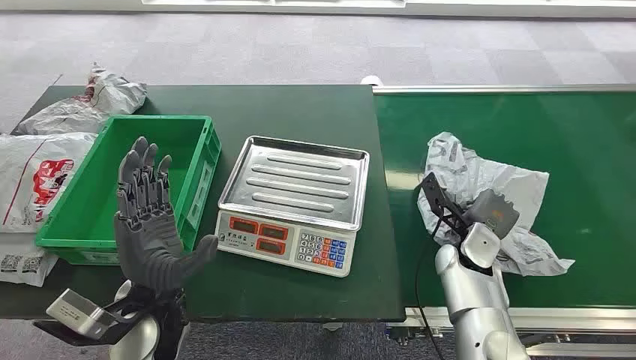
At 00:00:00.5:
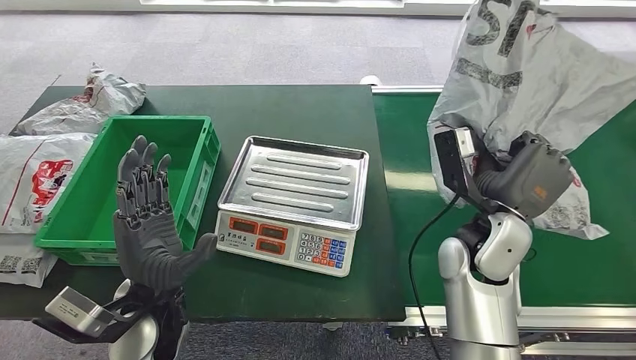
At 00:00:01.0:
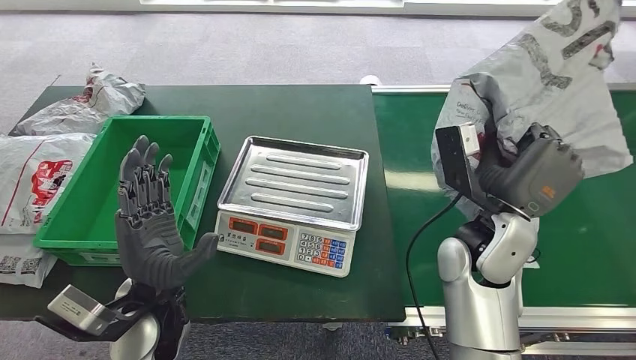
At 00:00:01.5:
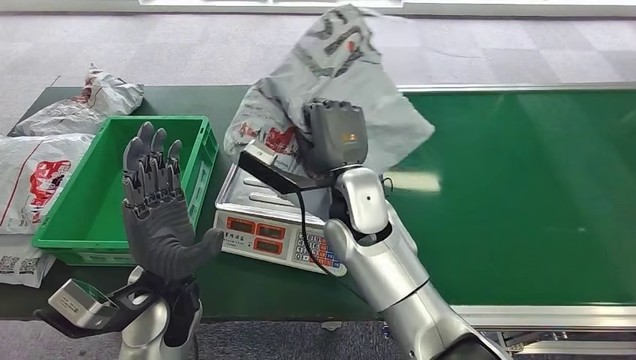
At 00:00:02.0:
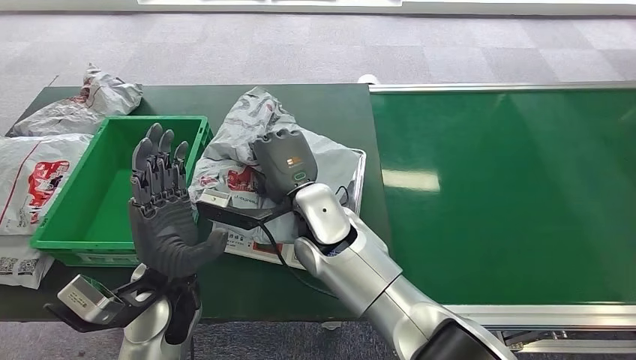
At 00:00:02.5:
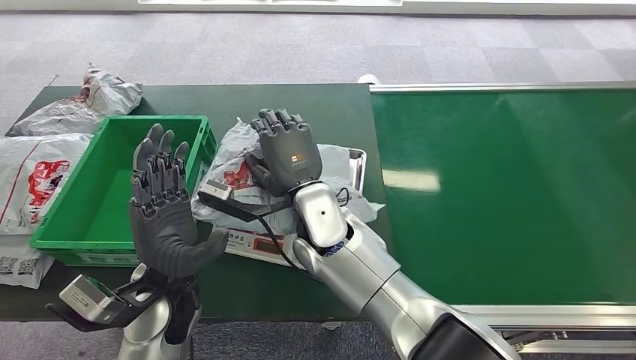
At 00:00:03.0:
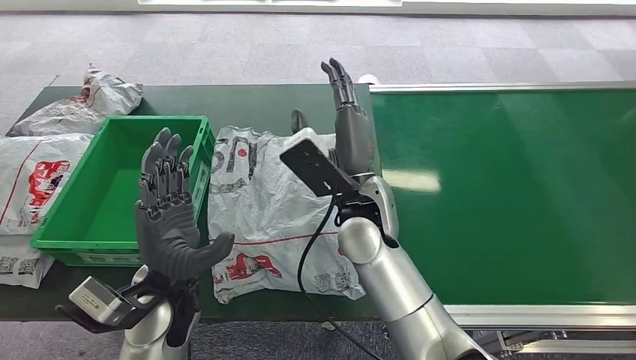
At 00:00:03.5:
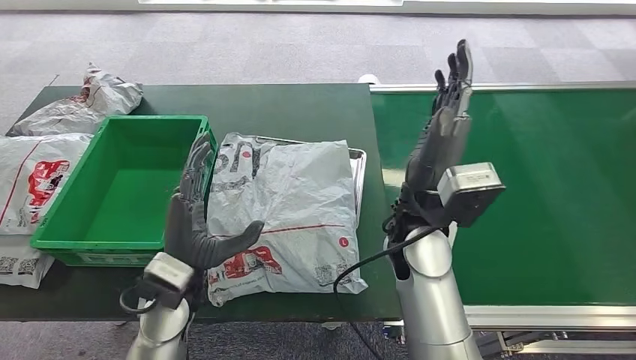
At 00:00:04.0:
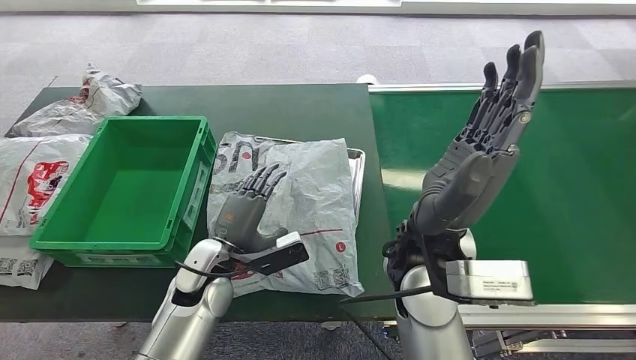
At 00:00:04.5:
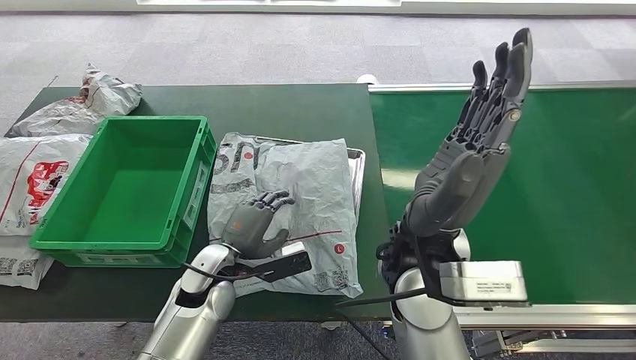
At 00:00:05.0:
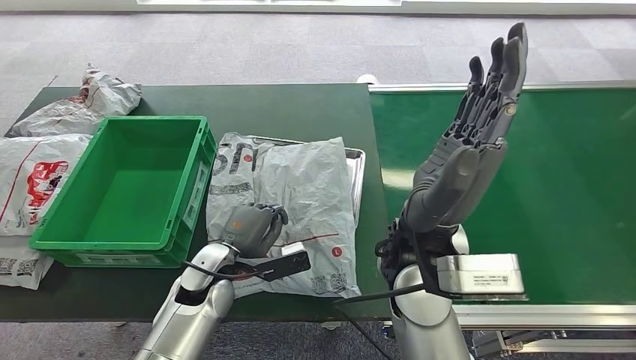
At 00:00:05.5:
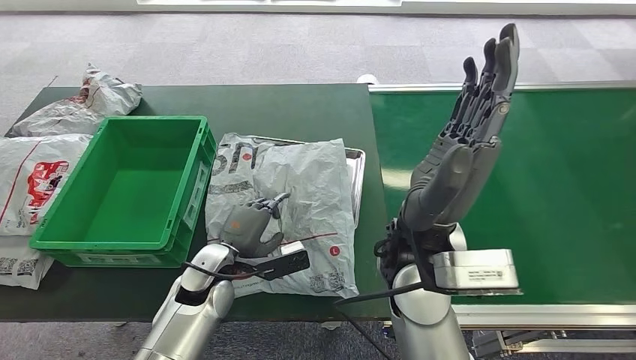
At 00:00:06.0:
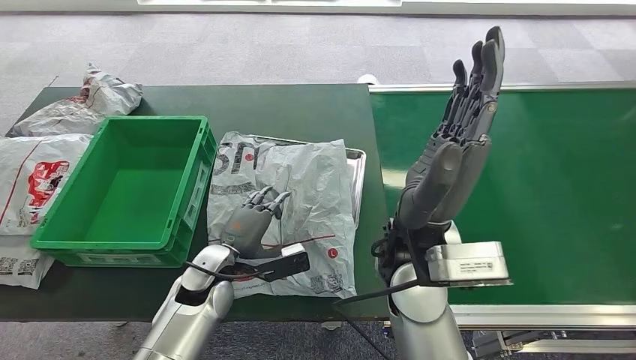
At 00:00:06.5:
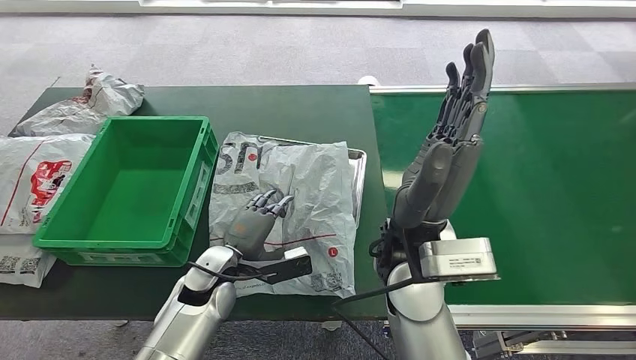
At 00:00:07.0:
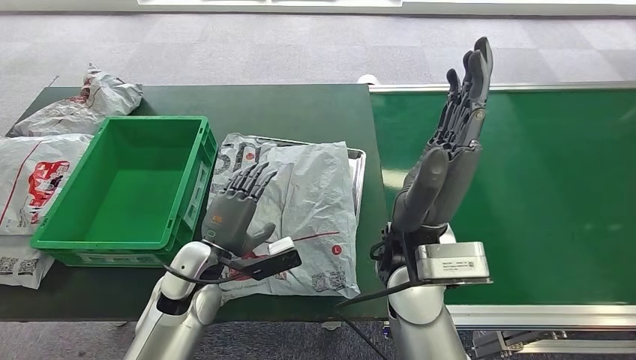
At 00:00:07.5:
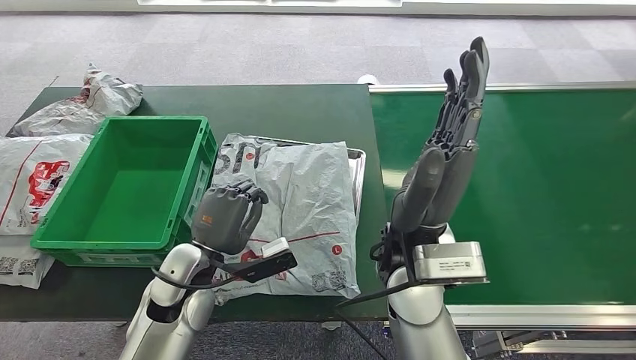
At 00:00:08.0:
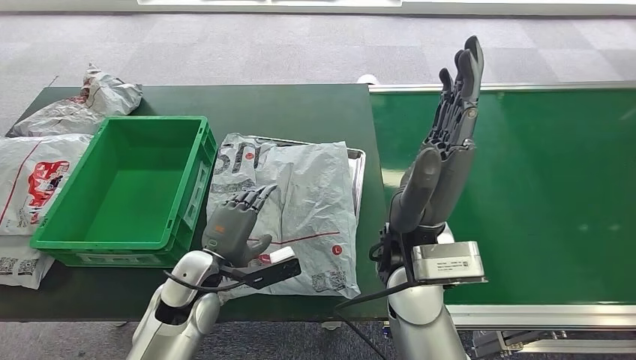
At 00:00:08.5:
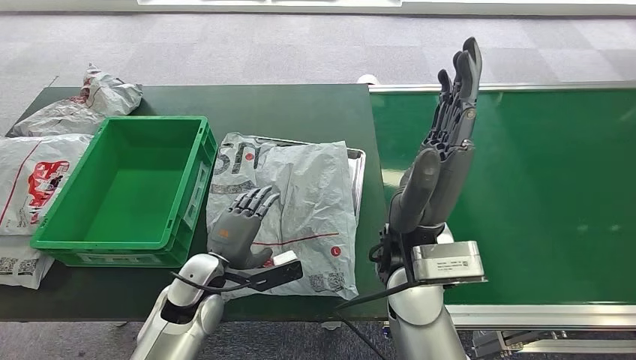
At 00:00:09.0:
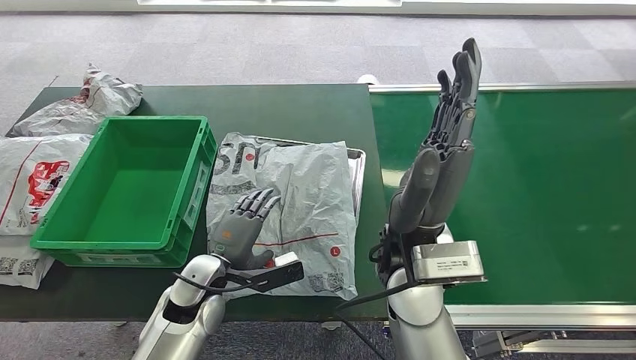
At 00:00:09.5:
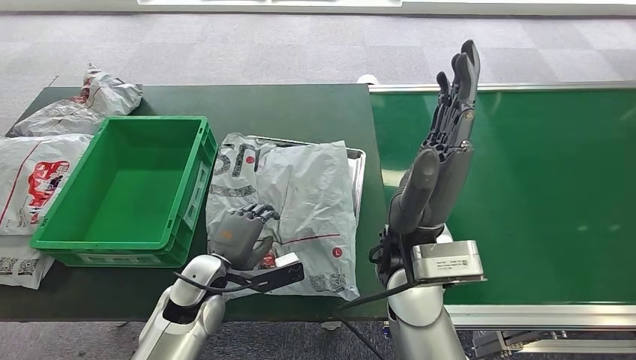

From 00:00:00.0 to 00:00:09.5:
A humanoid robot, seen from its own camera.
Step, from 00:00:00.0 to 00:00:01.0: Pick up the package from the conveyor belt.
Step, from 00:00:01.5 to 00:00:03.5: Place the package onto the inbound machine.
From 00:00:04.0 to 00:00:05.5: The hands move only a little.
From 00:00:05.5 to 00:00:07.5: The left hand moves upward, approximately 5 cm.
From 00:00:07.5 to 00:00:09.5: The left hand heads downward, covering approximately 5 cm.

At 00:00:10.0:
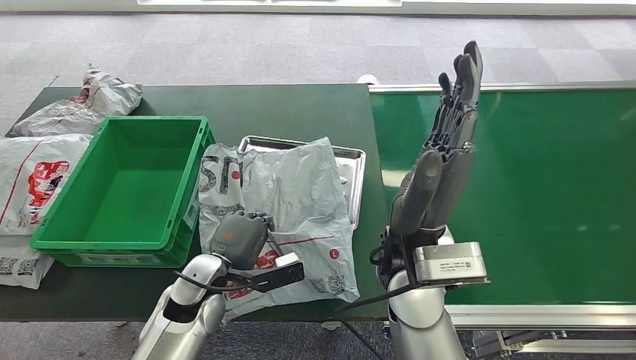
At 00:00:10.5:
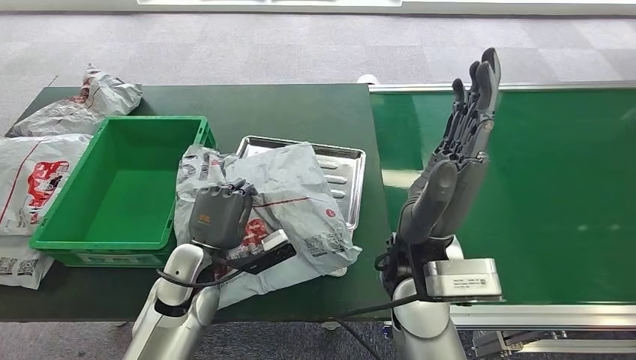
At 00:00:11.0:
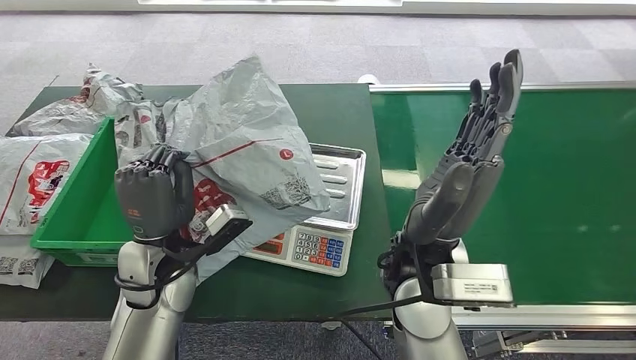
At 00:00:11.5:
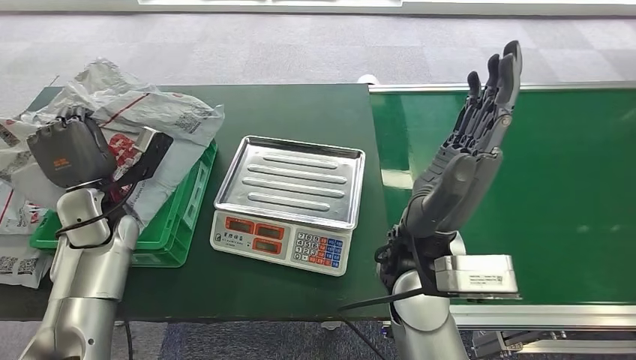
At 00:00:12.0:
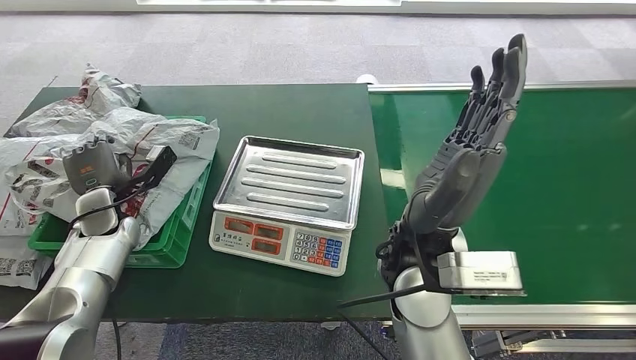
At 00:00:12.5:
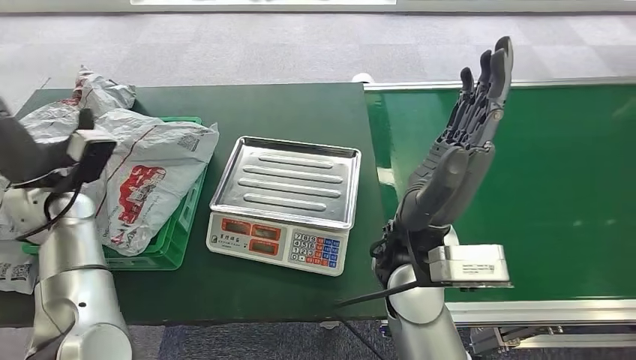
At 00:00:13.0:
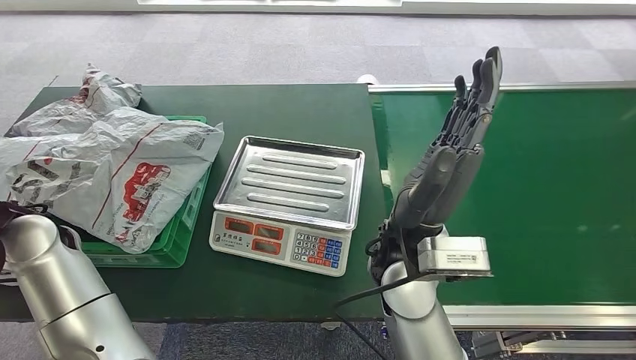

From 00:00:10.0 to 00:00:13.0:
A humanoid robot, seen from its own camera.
Step, from 00:00:12.0 to 00:00:13.0: Place the package into the parcel locker.

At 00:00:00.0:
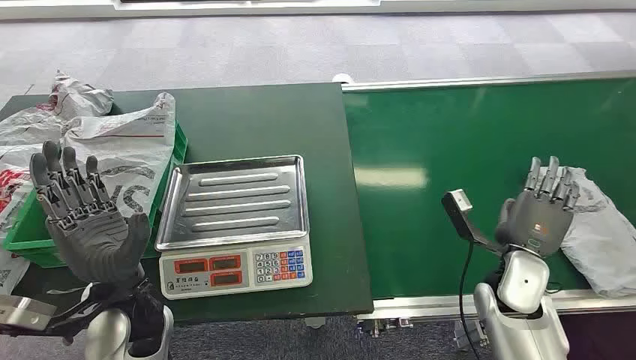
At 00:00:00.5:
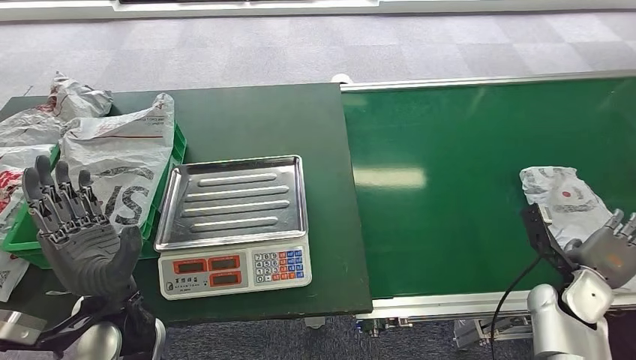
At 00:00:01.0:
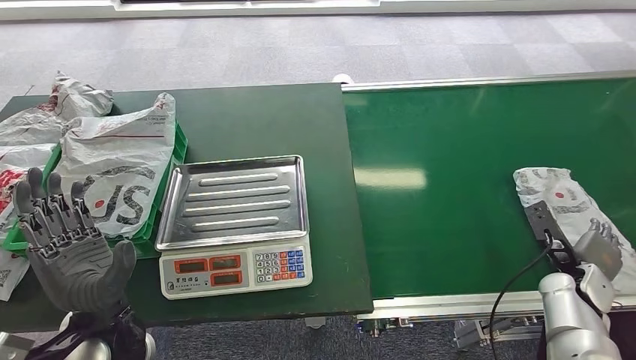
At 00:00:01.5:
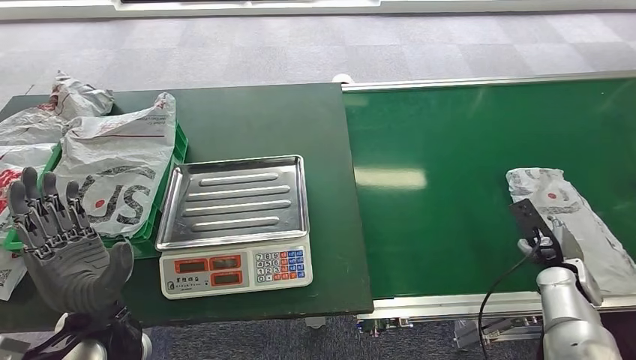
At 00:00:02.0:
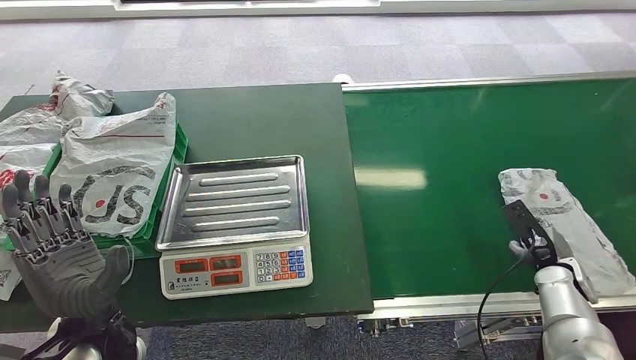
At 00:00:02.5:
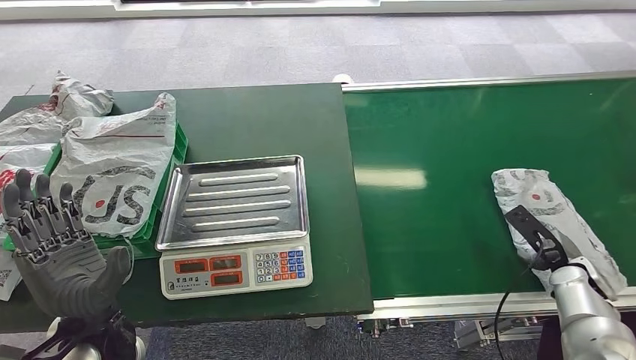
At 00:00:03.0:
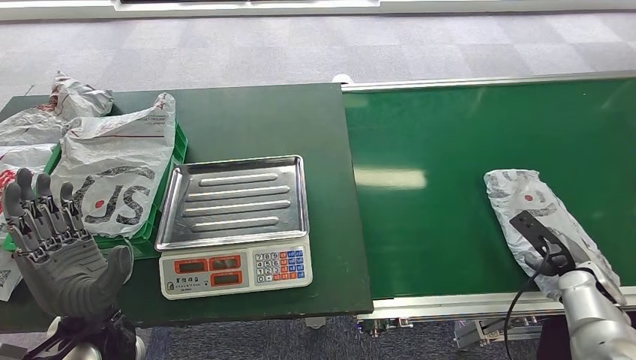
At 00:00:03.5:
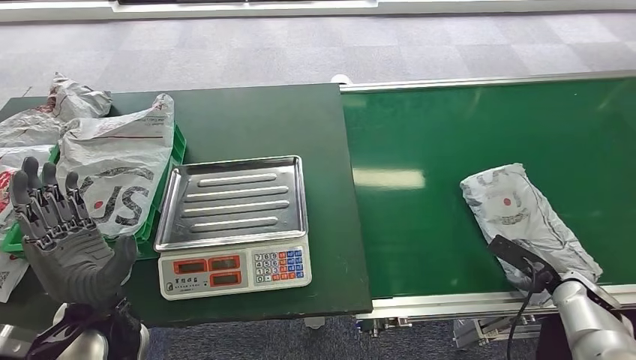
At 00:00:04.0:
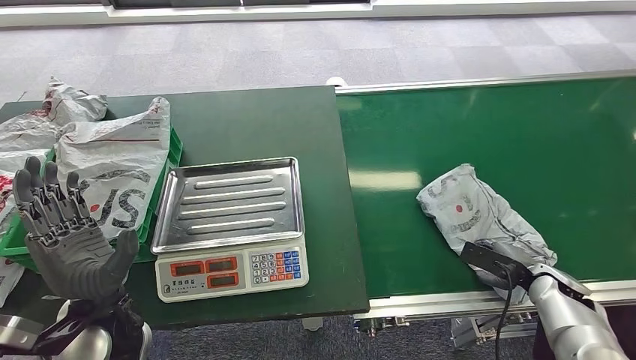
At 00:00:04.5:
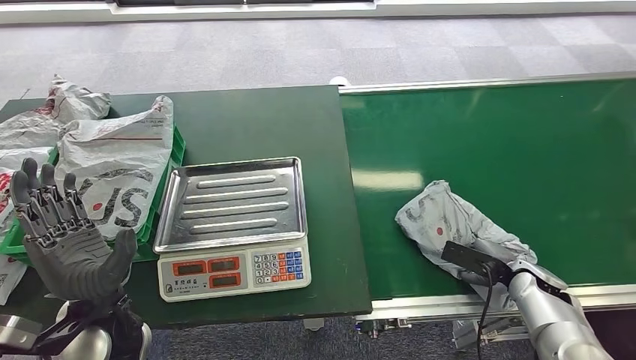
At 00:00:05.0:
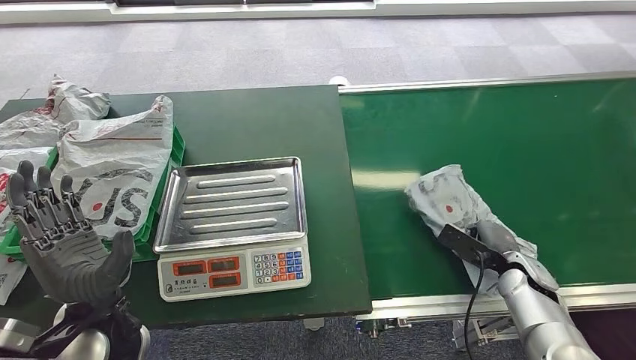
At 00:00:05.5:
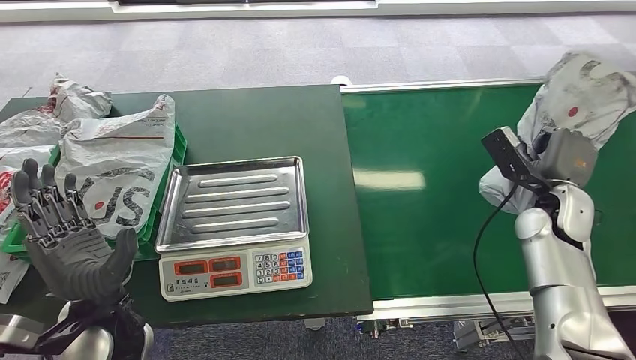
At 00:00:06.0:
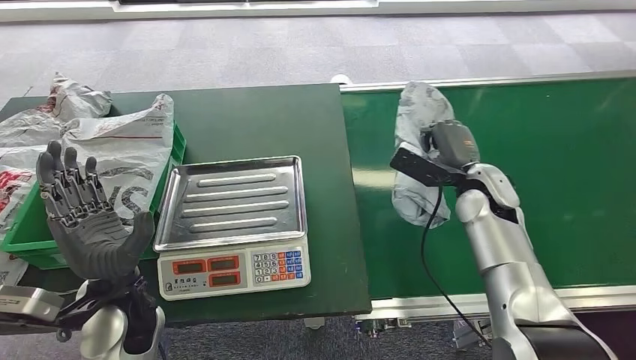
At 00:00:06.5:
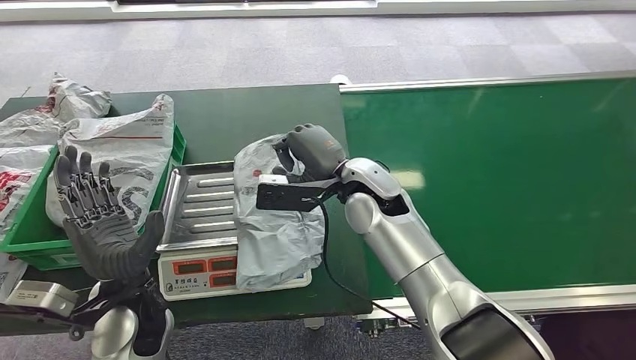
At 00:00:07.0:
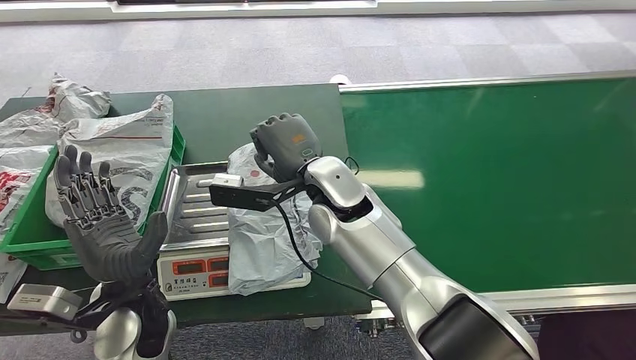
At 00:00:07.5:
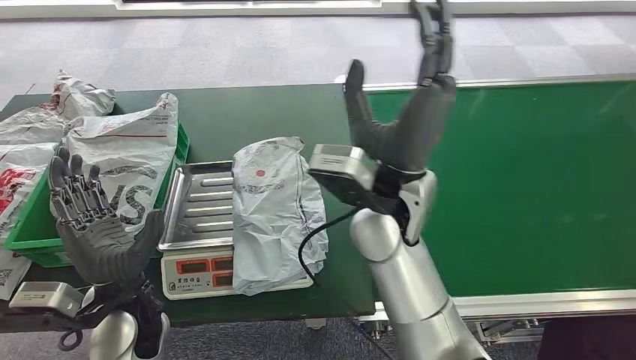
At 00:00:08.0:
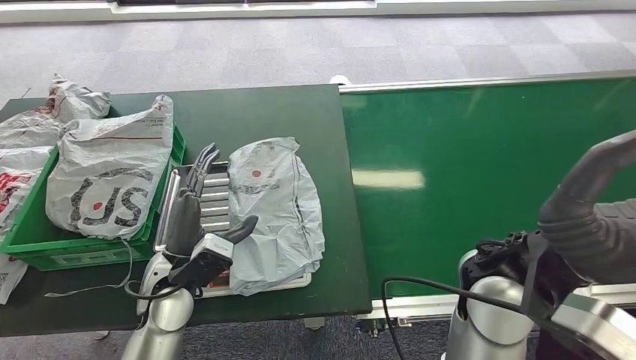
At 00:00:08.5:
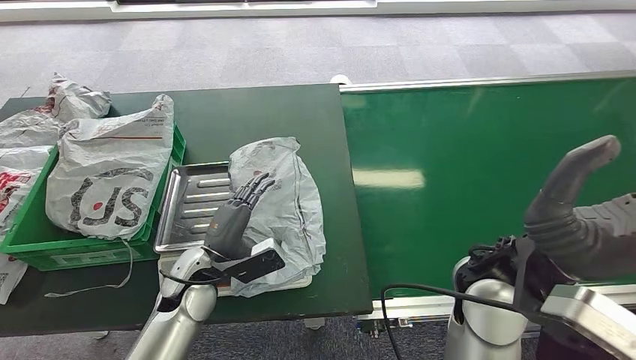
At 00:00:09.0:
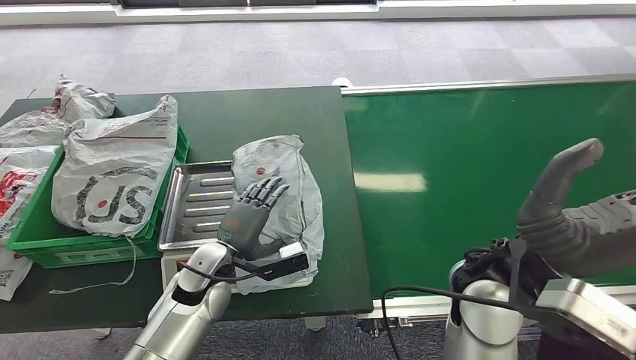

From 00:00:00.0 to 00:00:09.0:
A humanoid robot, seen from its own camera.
Step, from 00:00:00.0 to 00:00:05.5: Pick up the package from the conveyor belt.
Step, from 00:00:06.0 to 00:00:07.0: Place the package onto the inbound machine.
